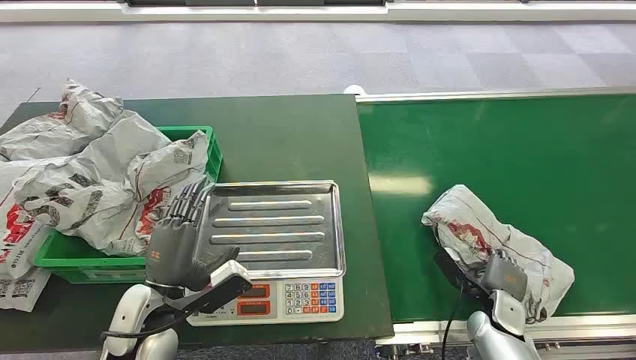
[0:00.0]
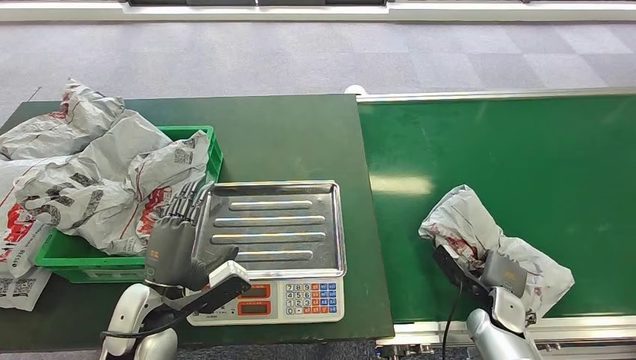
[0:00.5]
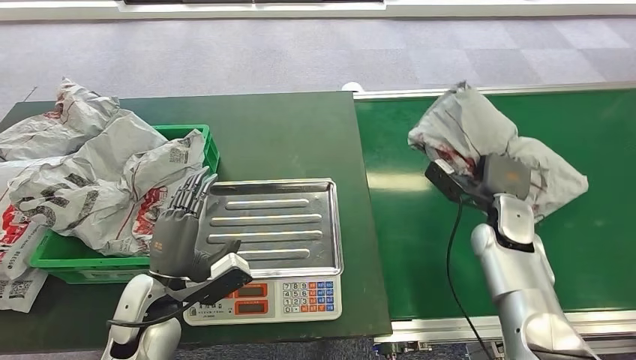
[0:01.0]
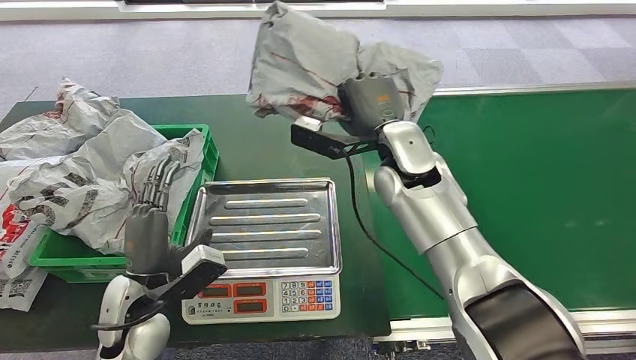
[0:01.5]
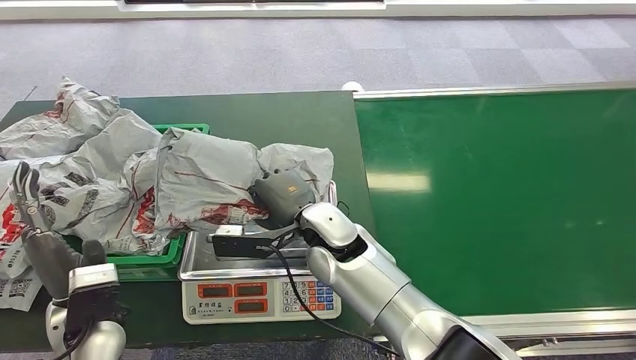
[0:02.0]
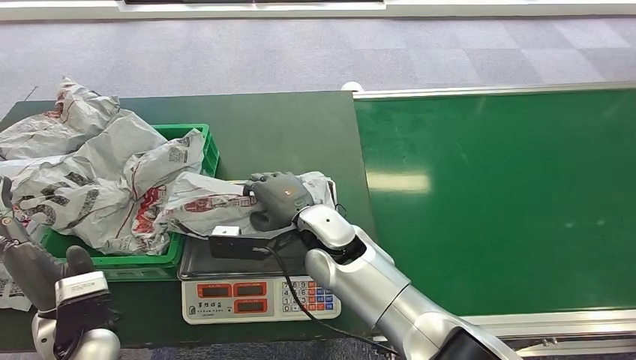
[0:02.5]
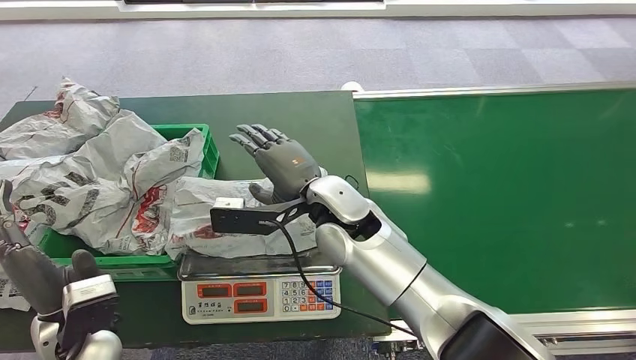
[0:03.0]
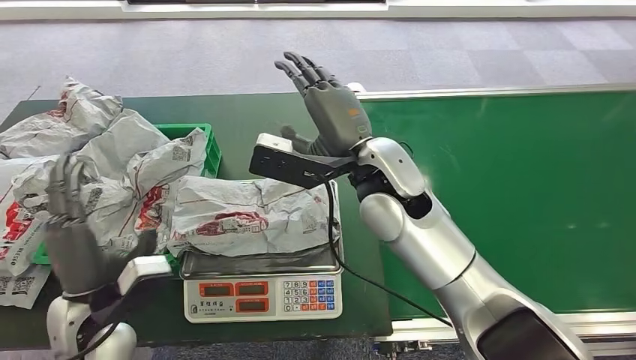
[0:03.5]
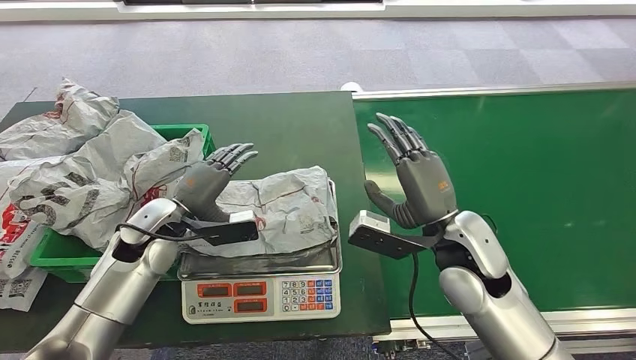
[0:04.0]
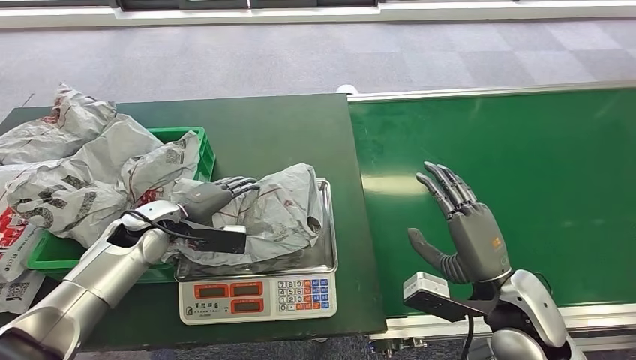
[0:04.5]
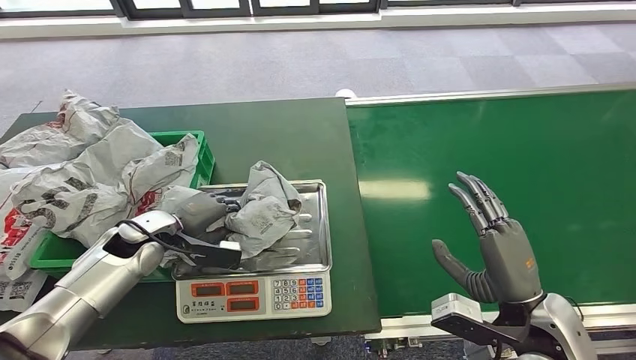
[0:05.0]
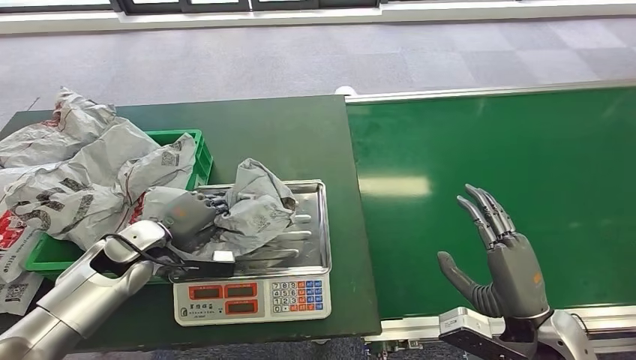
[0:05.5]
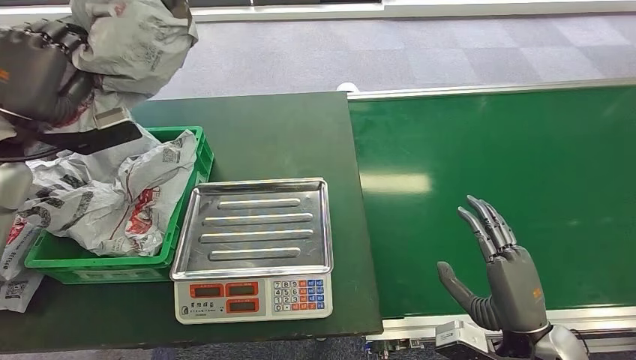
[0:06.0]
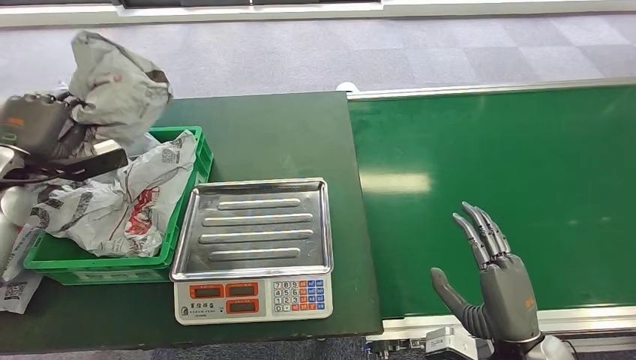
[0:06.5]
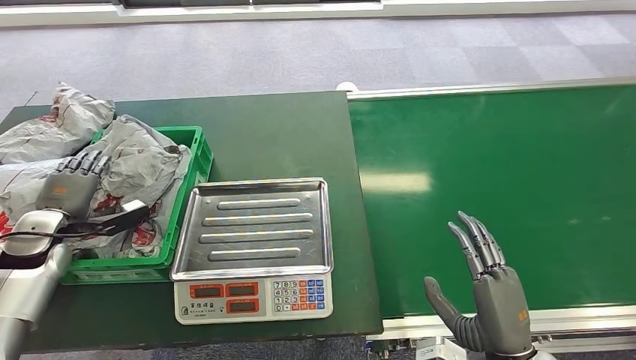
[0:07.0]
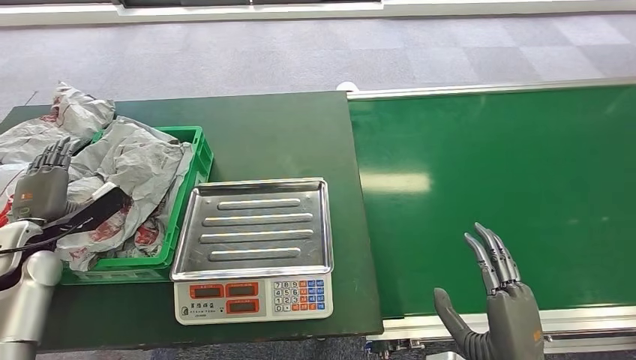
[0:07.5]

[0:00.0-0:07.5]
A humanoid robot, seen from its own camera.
Task of the whole recording: Weigh the package on the weighing device and place it in the left basket.
Step, 0:00.0 to 0:01.0: Pick up the package from the conveyor belt.
Step, 0:01.5 to 0:03.0: Place the package onto the inbound machine.
Step, 0:03.5 to 0:06.0: Pick up the package from the inbound machine.
Step, 0:06.5 to 0:07.5: Place the package into the parcel locker.
